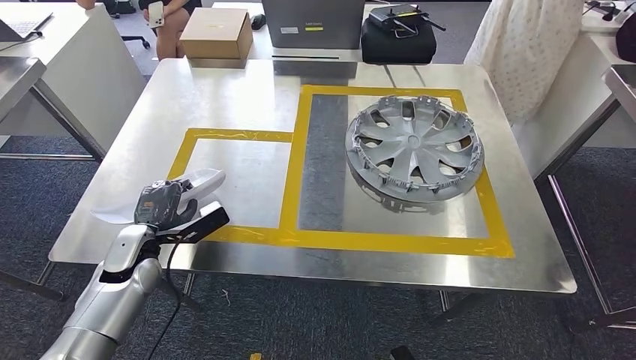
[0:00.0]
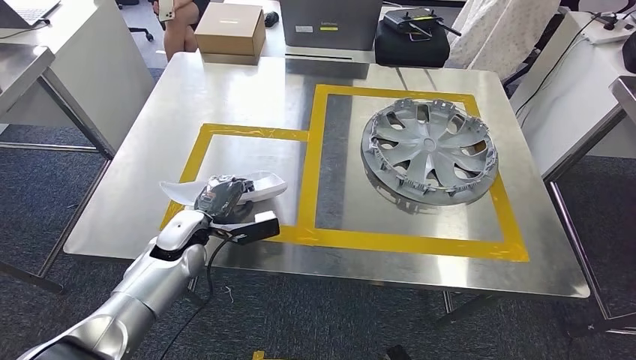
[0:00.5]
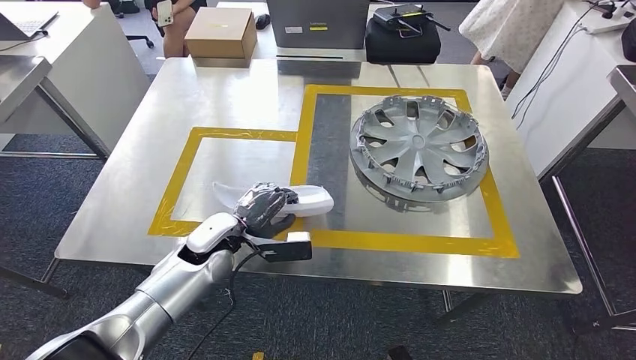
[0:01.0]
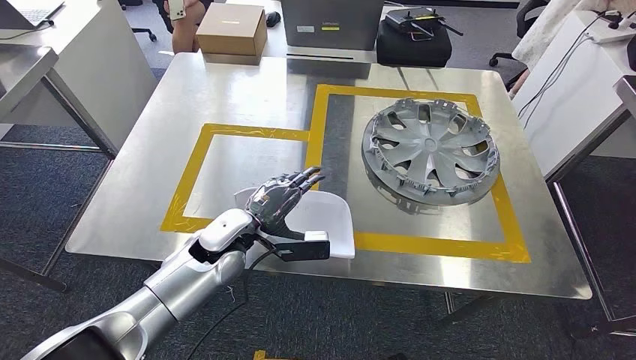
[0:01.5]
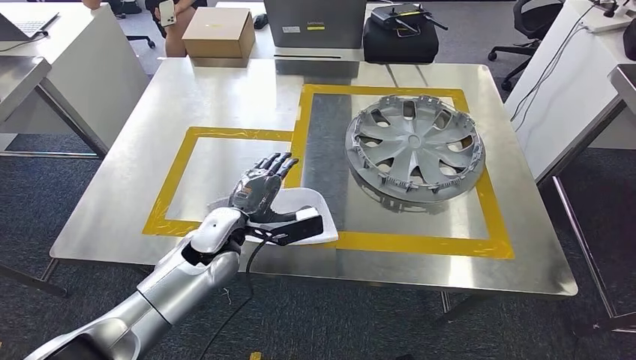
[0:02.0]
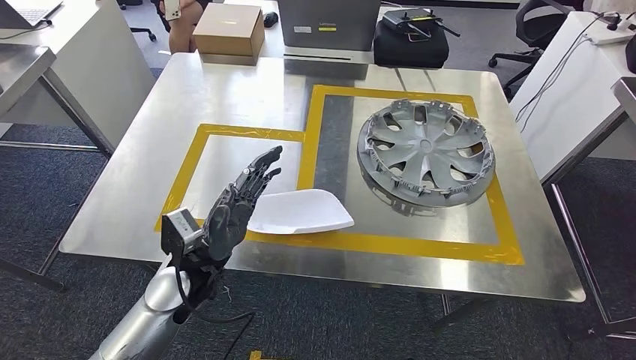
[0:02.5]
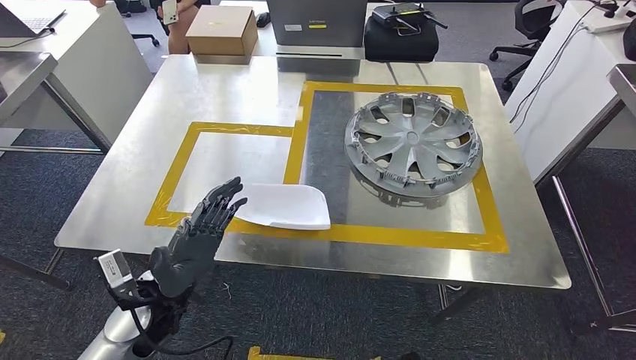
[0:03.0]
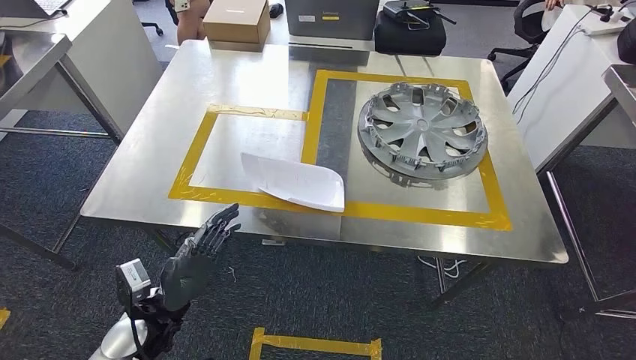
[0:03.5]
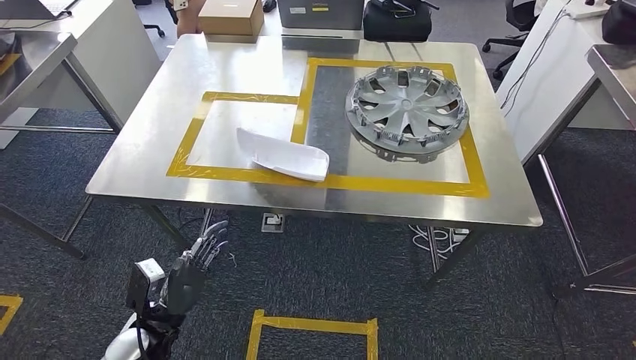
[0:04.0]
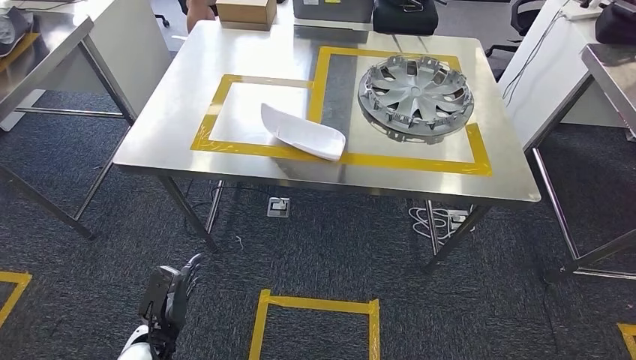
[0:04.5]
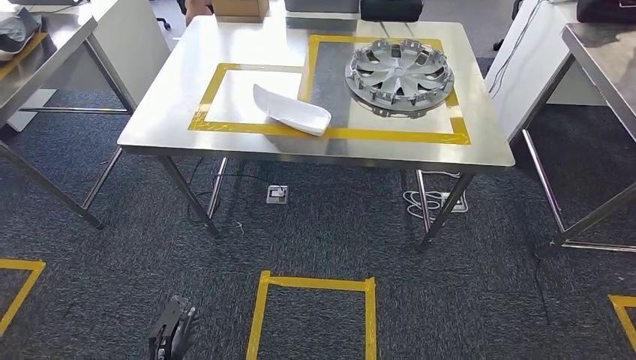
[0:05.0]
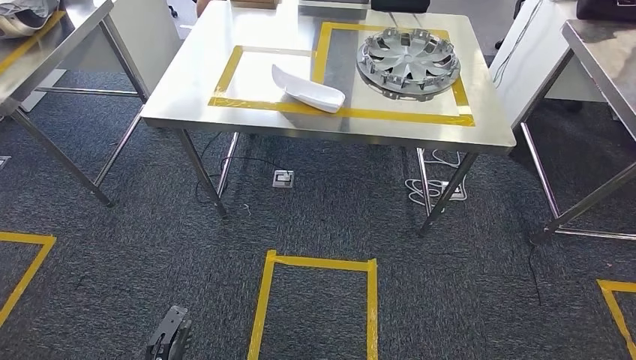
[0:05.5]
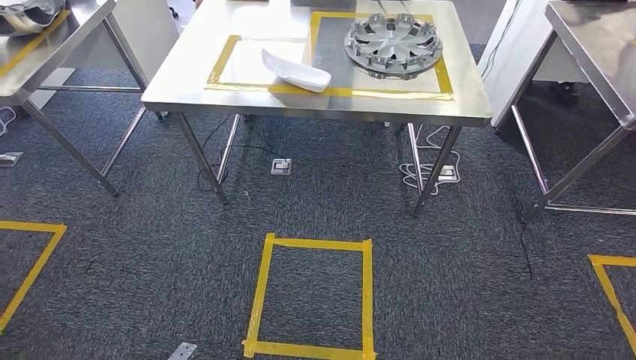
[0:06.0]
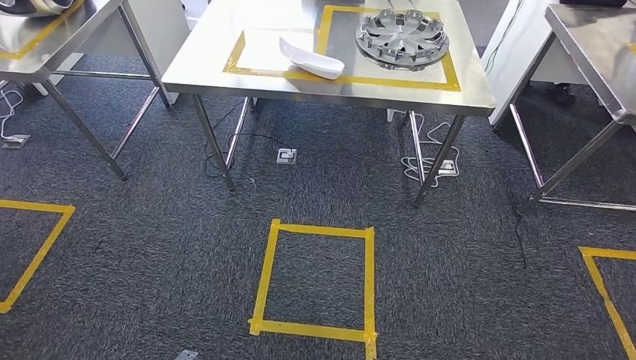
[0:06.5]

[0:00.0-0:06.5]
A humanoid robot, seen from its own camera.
Step, 0:00.0 to 0:02.5: Insert the small parts into the corresponding holes on the workbench.
Step, 0:03.0 to 0:06.5: Move to the initial position of the workbench.
